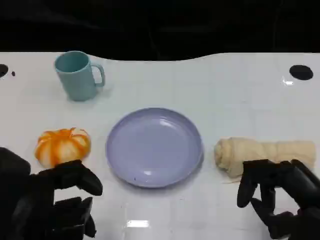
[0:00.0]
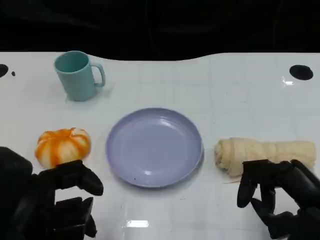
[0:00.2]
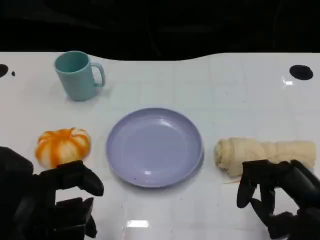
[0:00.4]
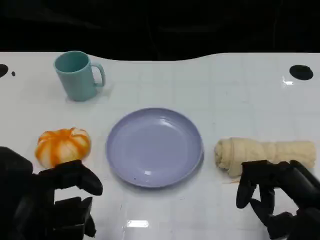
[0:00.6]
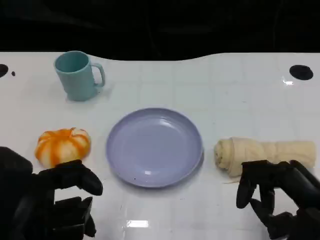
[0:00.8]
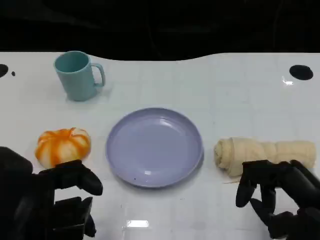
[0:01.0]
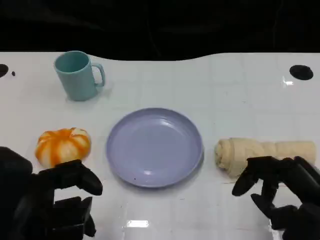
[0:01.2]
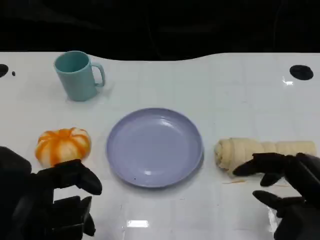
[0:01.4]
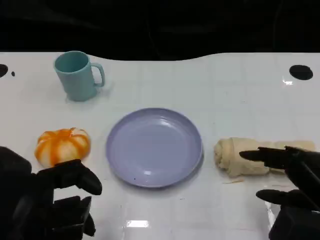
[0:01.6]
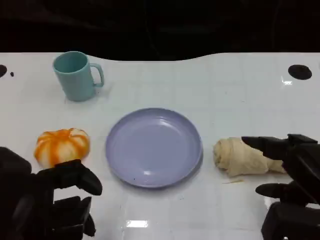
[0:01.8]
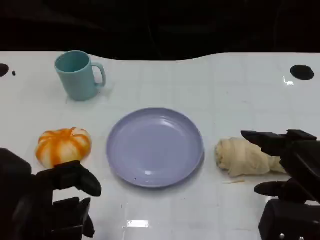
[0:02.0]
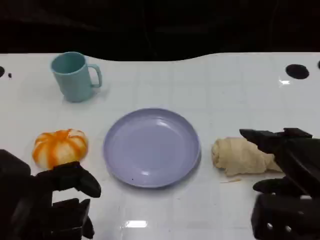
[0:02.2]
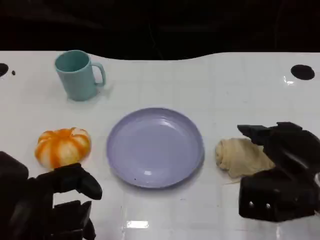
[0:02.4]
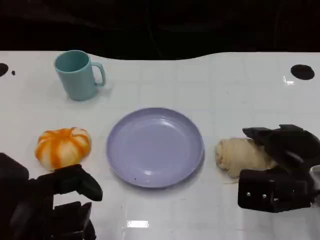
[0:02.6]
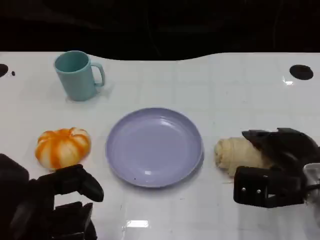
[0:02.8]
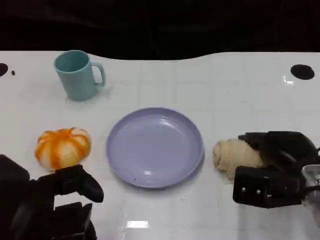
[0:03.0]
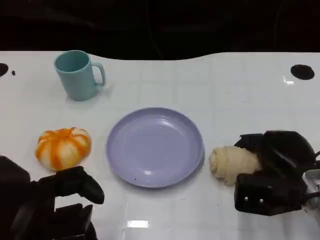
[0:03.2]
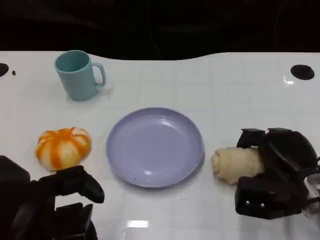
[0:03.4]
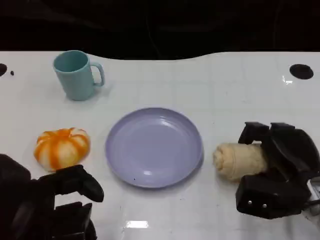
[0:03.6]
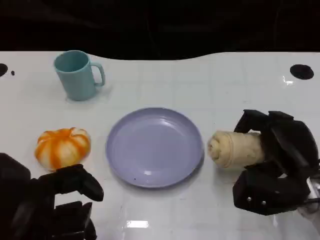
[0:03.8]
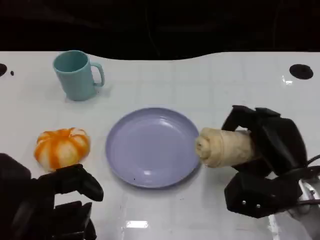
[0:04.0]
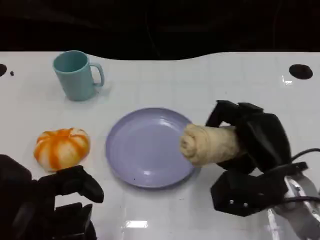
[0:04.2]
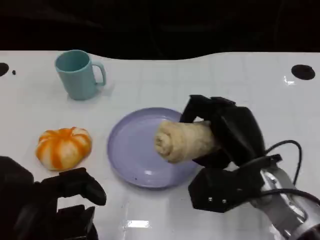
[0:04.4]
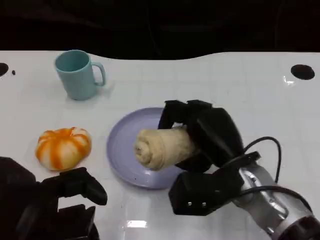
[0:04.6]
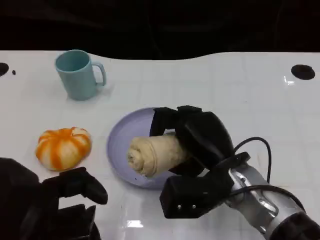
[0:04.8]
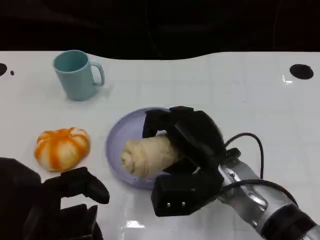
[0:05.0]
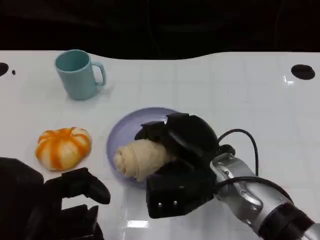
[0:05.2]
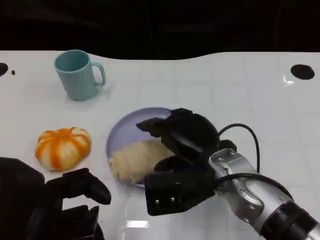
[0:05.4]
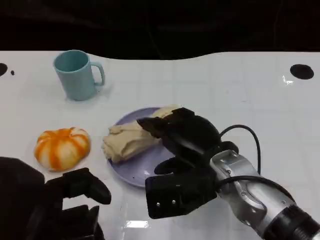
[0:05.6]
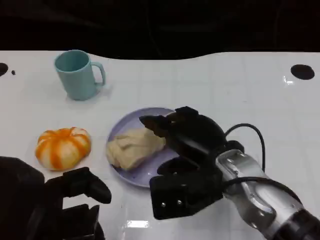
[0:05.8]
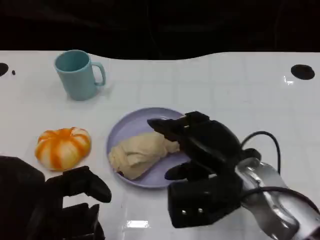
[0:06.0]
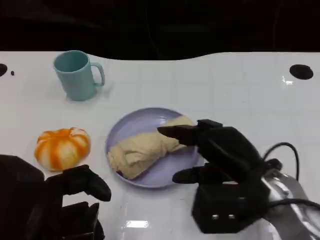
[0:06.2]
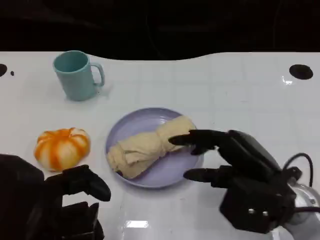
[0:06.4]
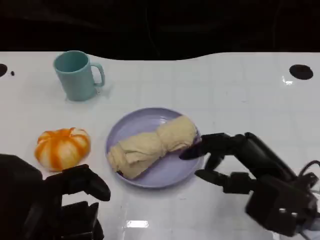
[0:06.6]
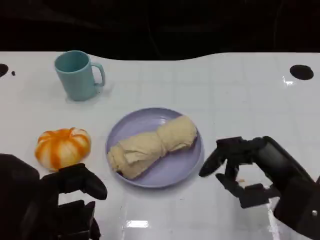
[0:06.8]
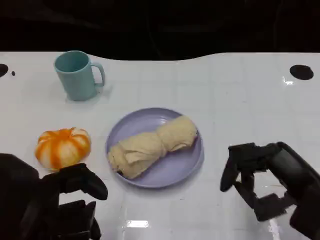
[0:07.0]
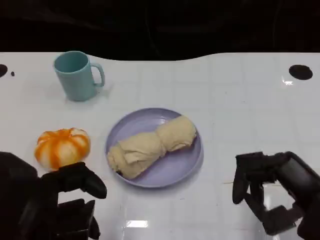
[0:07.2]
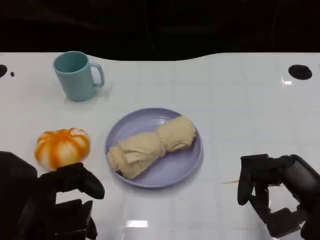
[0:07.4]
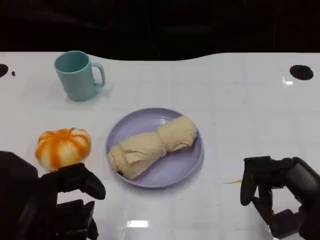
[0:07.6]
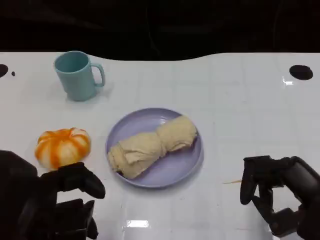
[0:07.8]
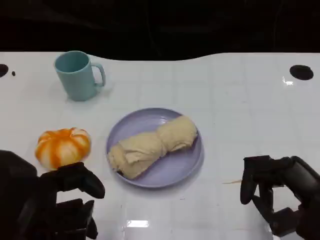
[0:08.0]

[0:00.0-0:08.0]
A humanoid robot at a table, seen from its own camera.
Task of the whole recording: Grasp the towel on the left side of the plate with the left hand and place it into the plate.
0:01.6 to 0:03.2: The right hand moves forward and downward, about 10 cm.
0:03.2 to 0:04.8: The right hand moves to the left, some 10 cm.
0:04.8 to 0:06.4: The right hand shifts roughly 10 cm to the right.
0:06.4 to 0:08.0: The right hand travels to the right by about 5 cm.
